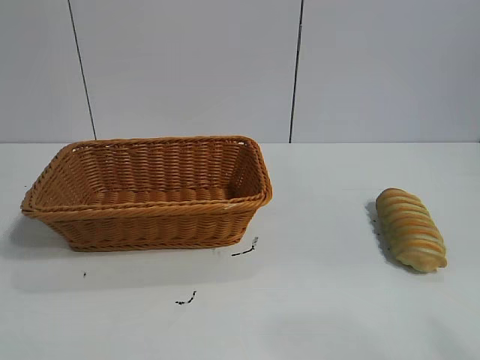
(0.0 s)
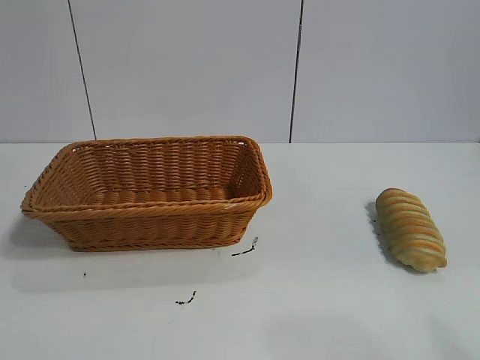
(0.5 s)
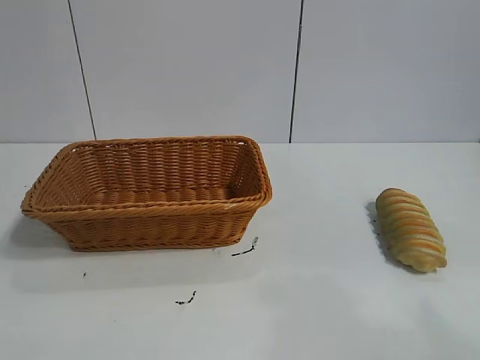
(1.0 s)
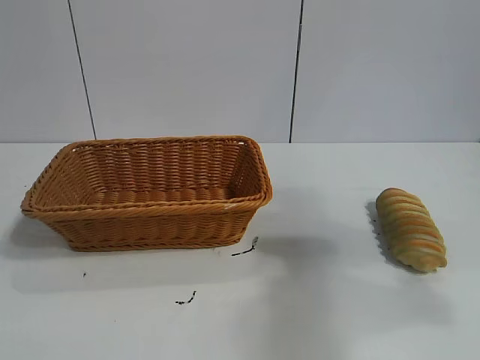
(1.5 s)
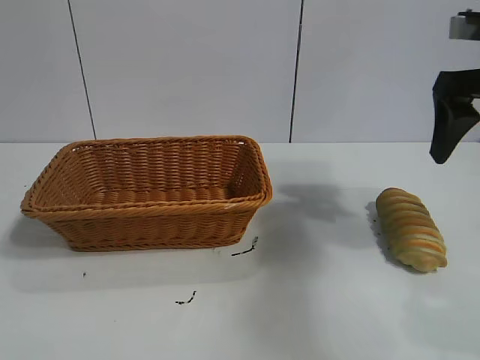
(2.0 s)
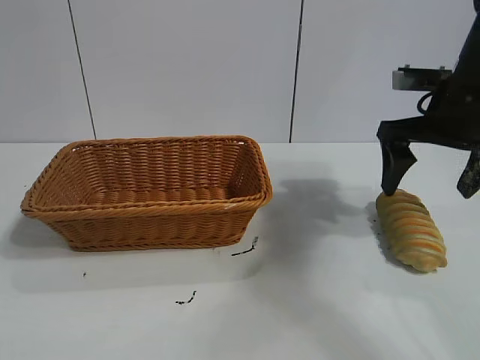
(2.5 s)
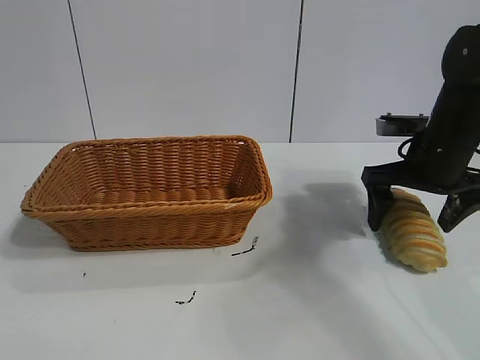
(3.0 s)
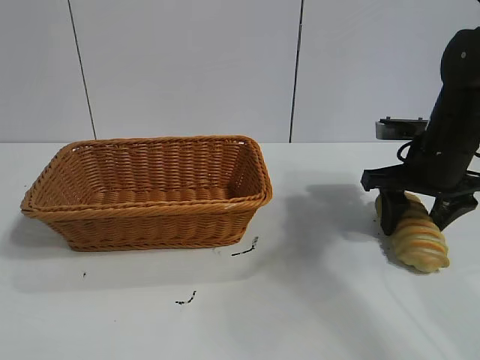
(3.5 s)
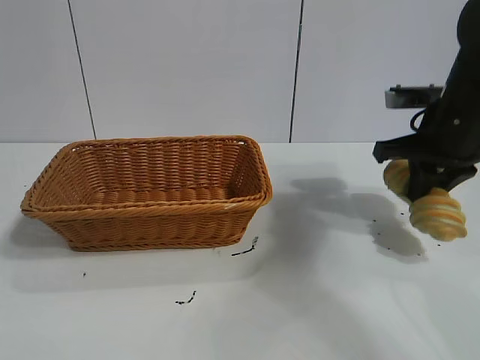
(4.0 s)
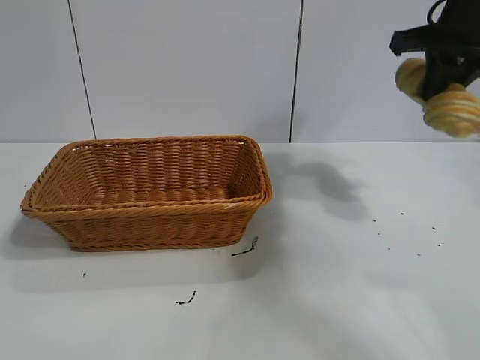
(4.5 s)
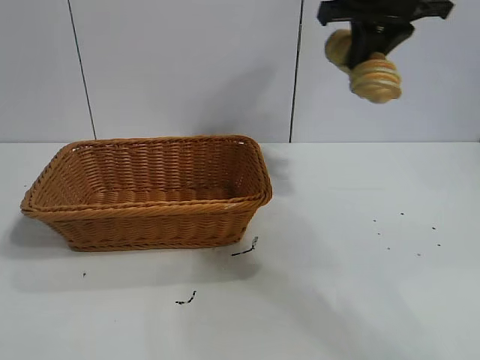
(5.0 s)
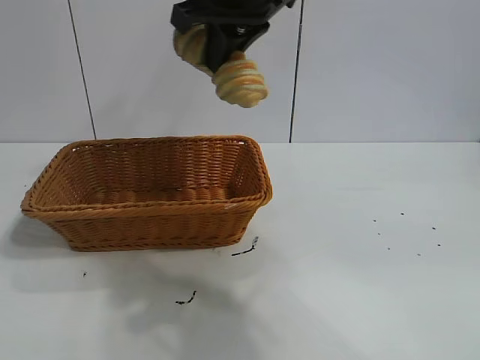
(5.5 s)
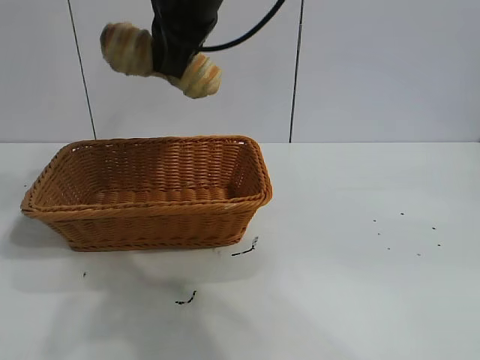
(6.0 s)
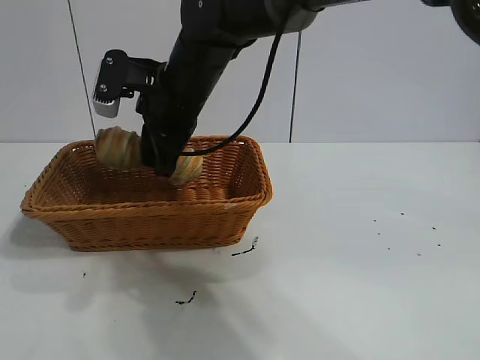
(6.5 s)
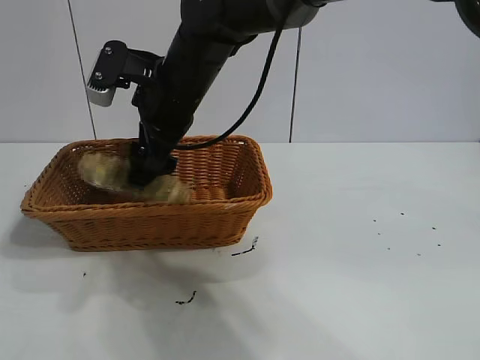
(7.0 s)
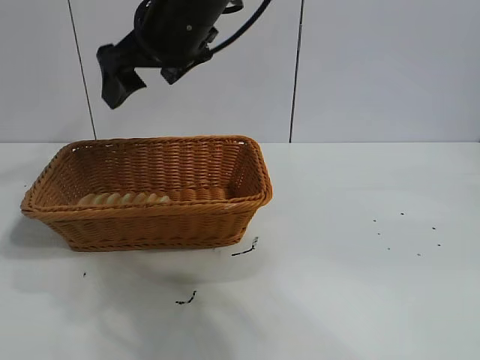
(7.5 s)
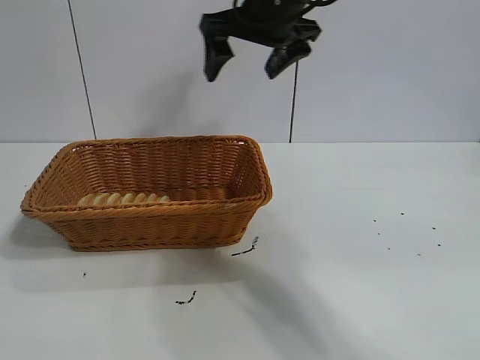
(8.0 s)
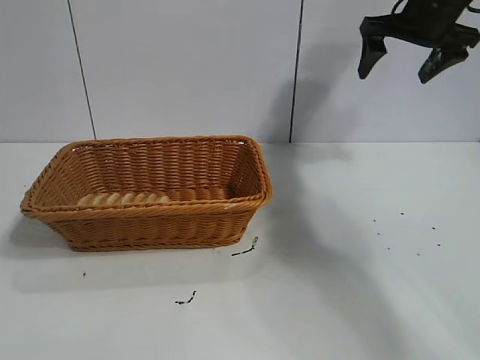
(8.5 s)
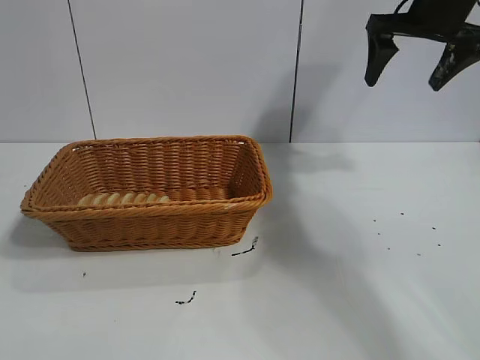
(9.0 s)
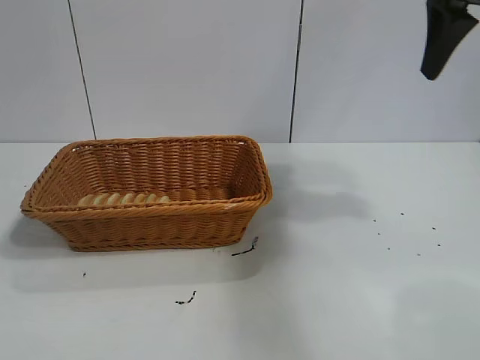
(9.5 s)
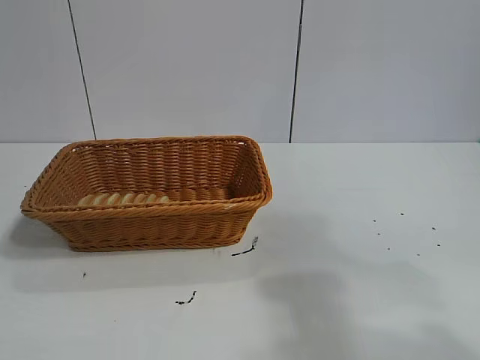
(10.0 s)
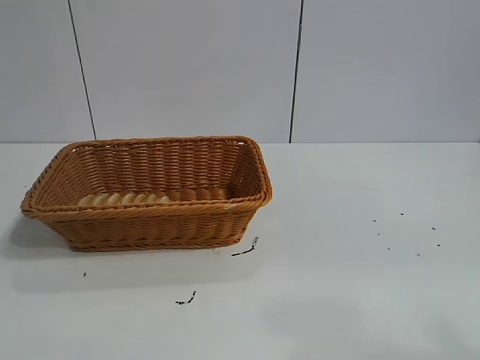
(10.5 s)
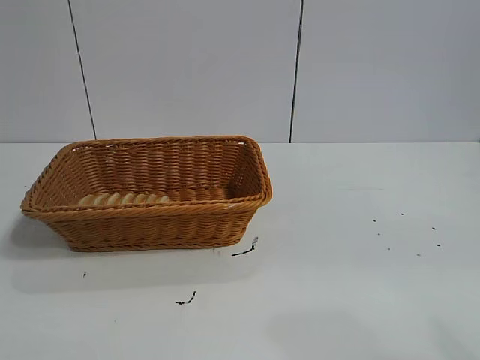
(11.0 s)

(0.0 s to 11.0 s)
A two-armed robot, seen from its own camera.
Task of the whole recording: pick up the long bread and put it into the basket.
Step, 2.0 s - 3.5 s: Grasp the long bread with right gripper.
Step, 4.0 s - 7.0 s: Place the long bread in the basket with right gripper.

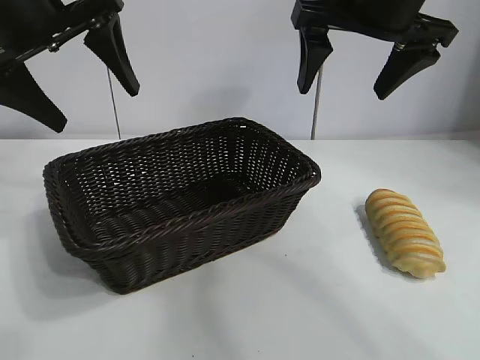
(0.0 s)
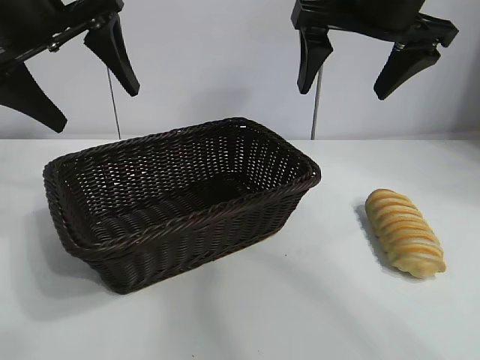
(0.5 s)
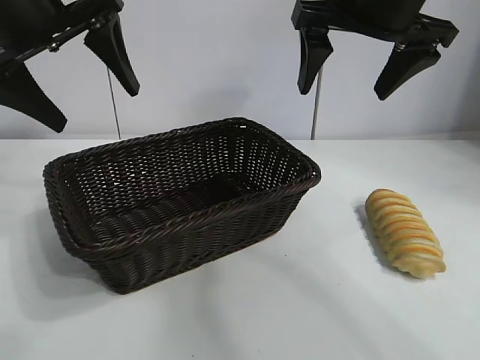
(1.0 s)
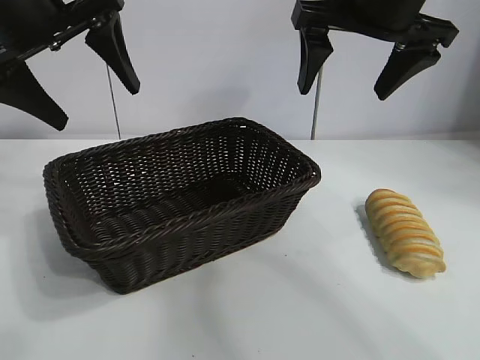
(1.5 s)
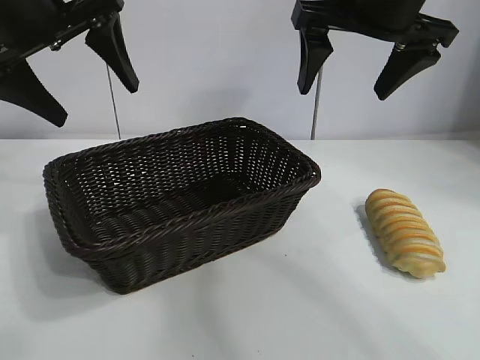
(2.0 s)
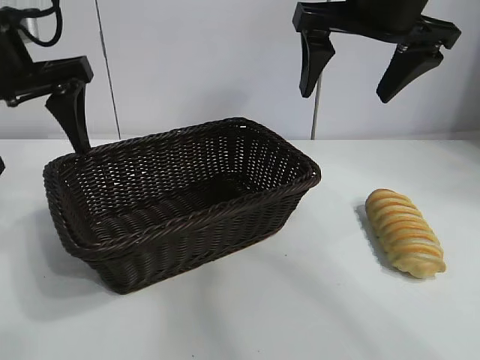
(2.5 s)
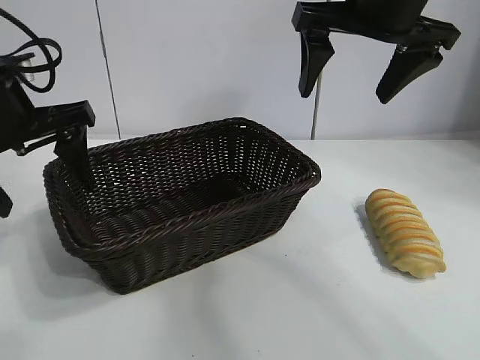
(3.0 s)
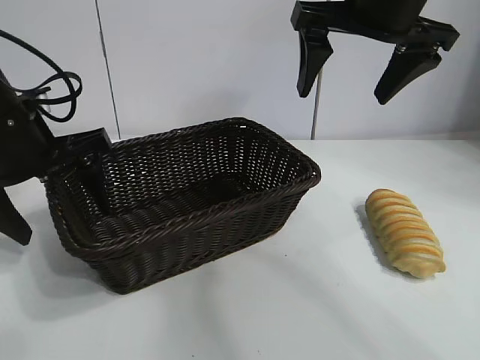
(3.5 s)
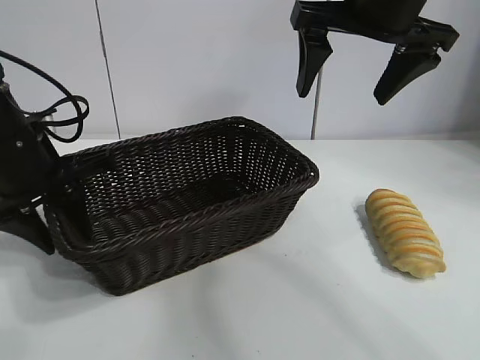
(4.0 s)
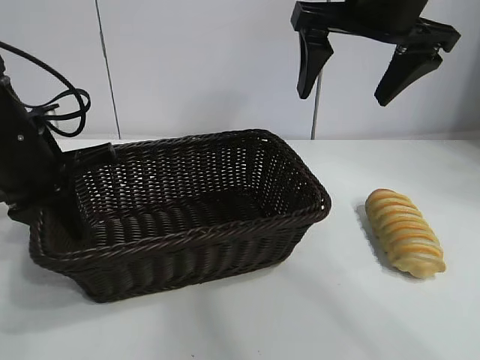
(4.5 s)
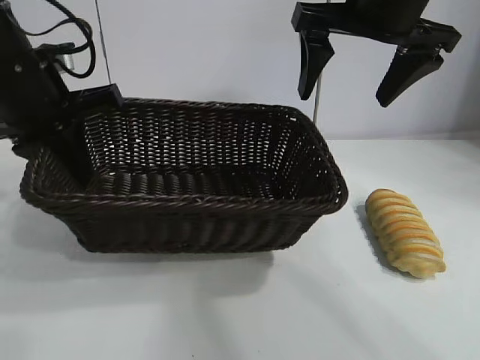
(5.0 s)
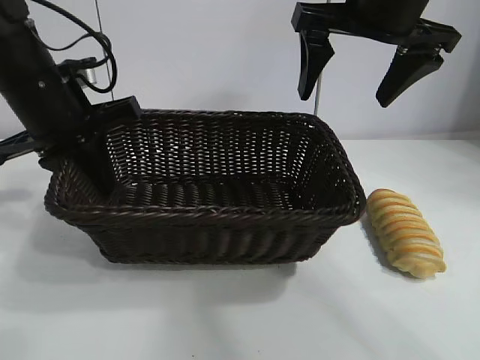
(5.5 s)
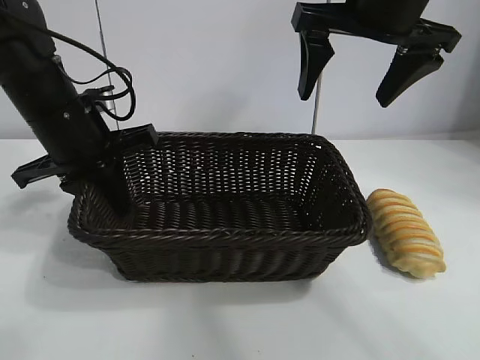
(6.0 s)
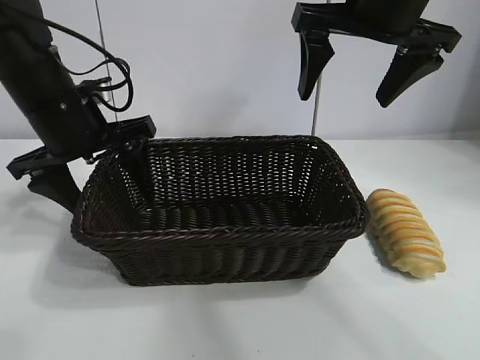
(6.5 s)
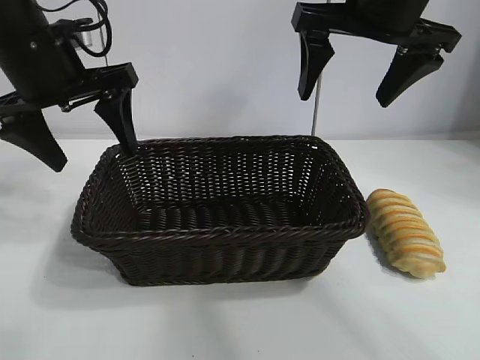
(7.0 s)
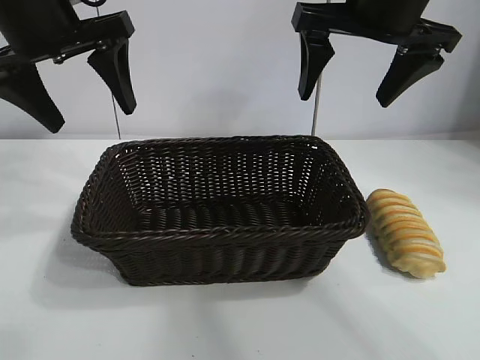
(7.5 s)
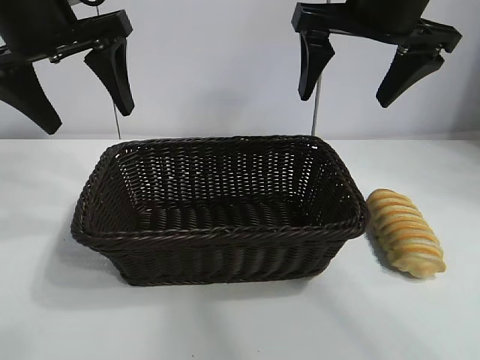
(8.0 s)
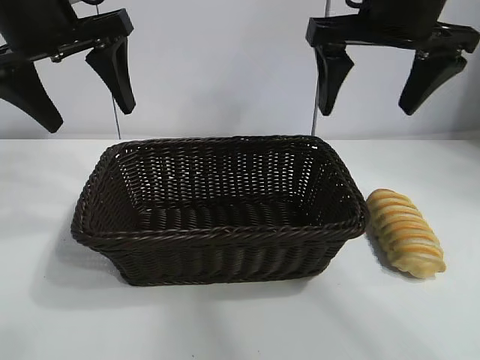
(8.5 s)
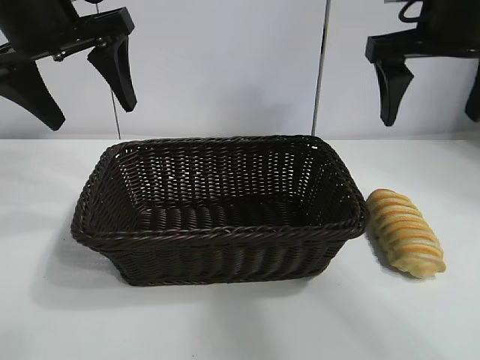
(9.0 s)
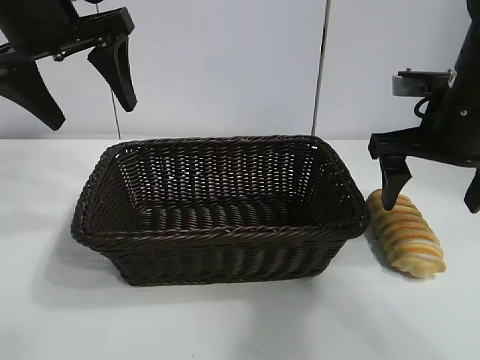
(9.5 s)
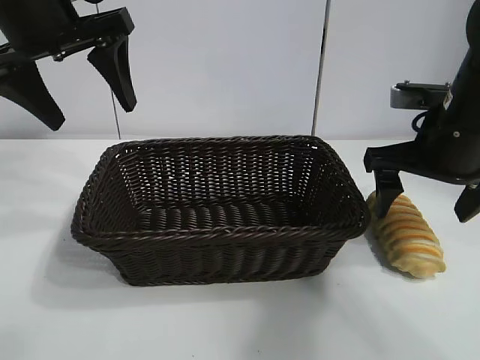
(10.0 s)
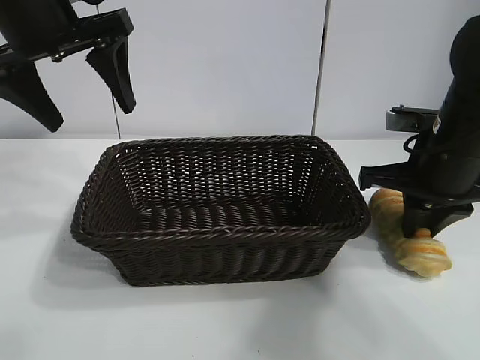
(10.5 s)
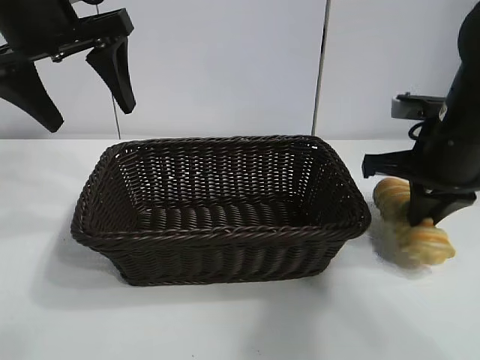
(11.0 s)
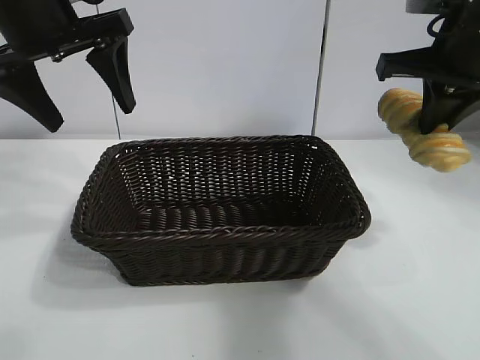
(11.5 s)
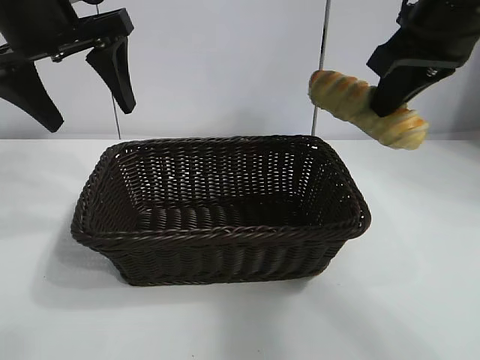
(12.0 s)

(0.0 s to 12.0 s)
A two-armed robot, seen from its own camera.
Task of the whole recording: pick up the long bread and put it into the basket.
Step, 1.5 s - 4.0 s: Grasp the basket with the left gripper.
Step, 4.5 s - 6.0 s: Place the basket in the center of the table with the left gripper.
Step, 7.0 s - 10.5 s: Grasp the long bread with right gripper.

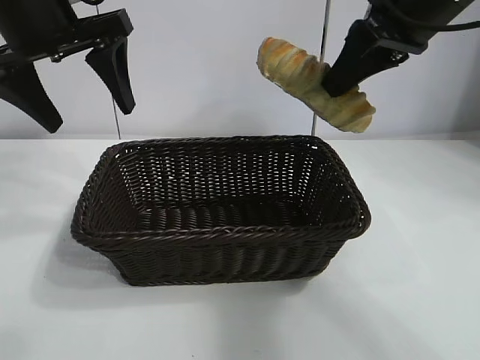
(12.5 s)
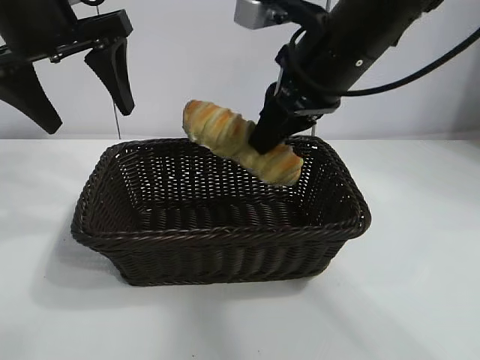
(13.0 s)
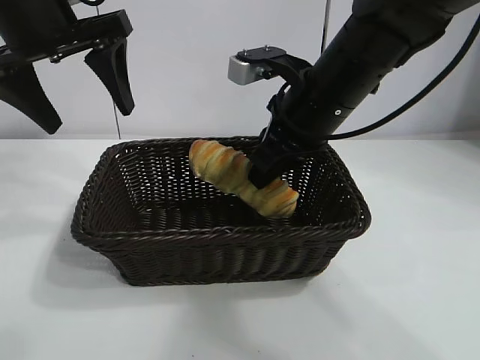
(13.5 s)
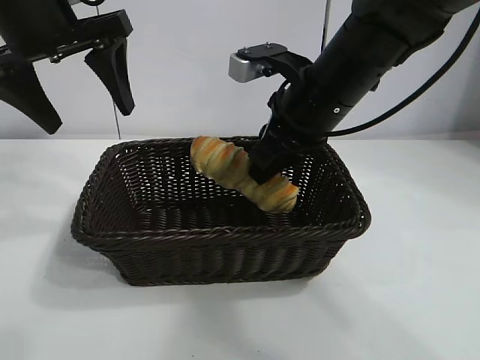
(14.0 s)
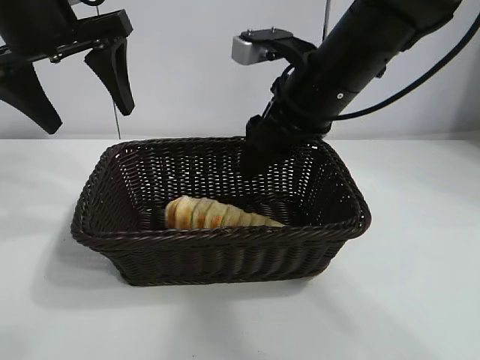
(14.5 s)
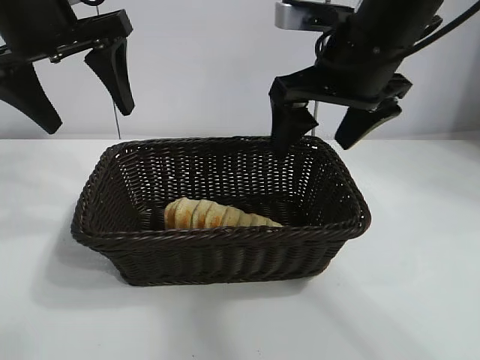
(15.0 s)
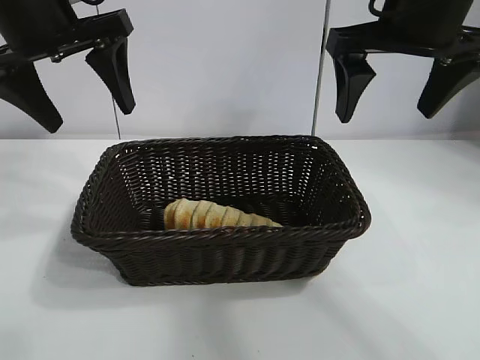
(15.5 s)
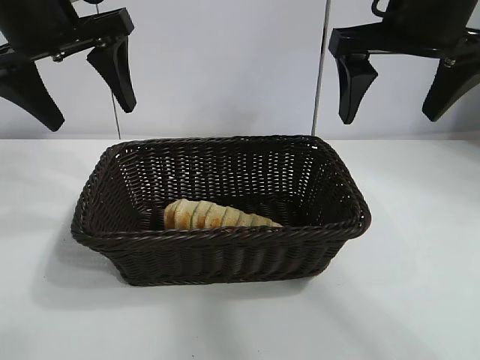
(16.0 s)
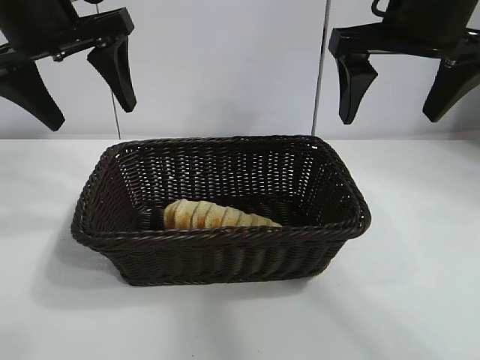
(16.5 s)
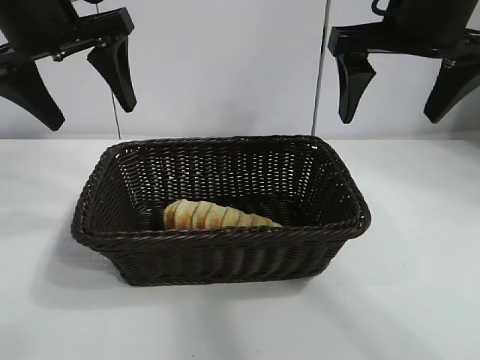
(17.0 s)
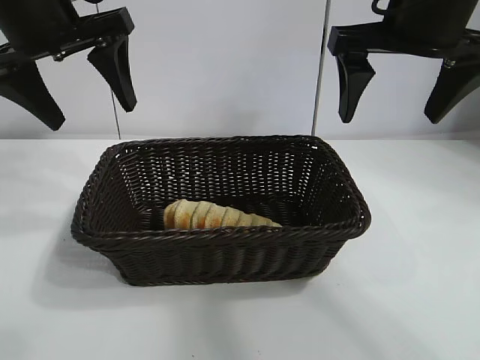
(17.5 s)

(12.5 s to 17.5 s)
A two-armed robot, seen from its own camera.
Task of the whole recording: pick up the long bread and put it into the basket.
Step, 12.5 s - 14.5 s: Place the long bread in the basket with right gripper.
